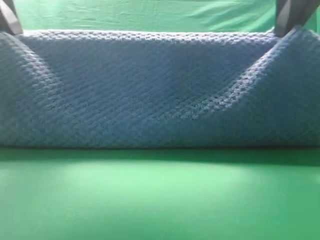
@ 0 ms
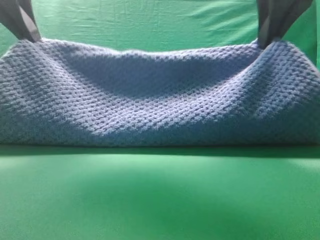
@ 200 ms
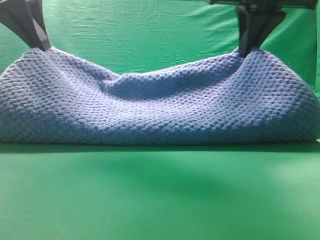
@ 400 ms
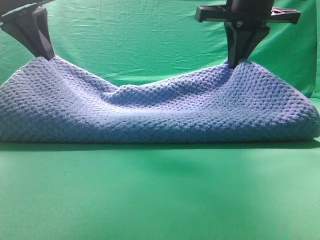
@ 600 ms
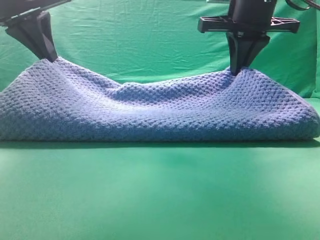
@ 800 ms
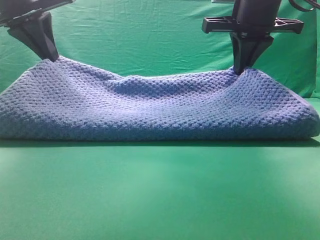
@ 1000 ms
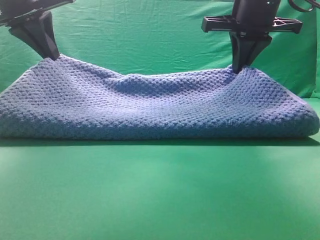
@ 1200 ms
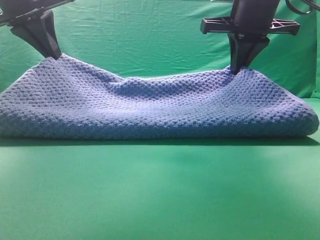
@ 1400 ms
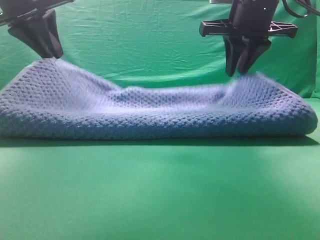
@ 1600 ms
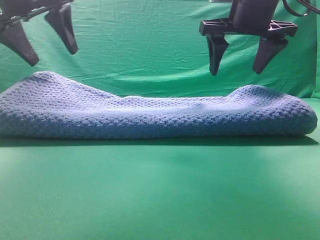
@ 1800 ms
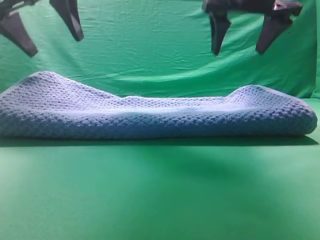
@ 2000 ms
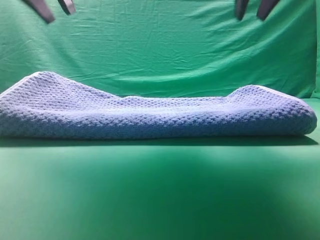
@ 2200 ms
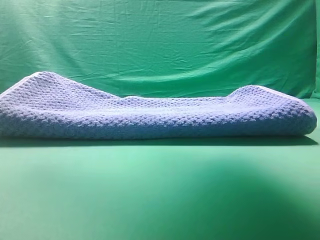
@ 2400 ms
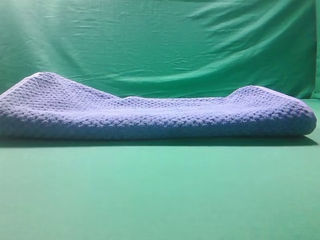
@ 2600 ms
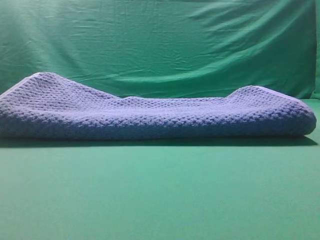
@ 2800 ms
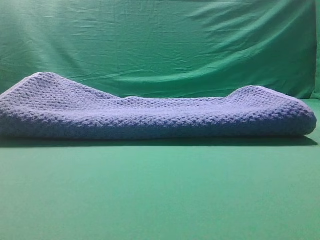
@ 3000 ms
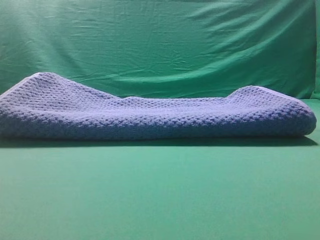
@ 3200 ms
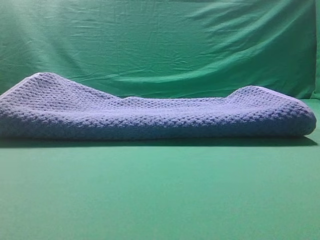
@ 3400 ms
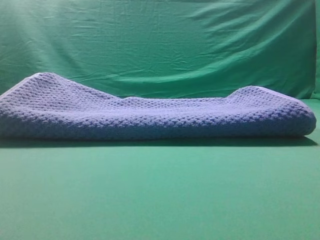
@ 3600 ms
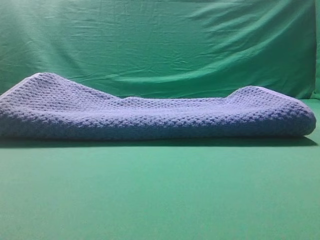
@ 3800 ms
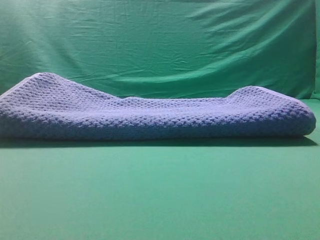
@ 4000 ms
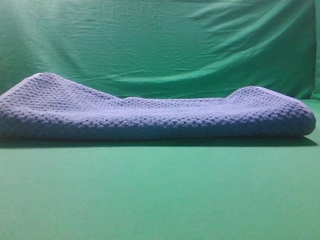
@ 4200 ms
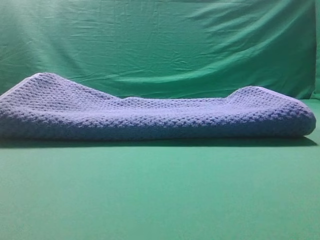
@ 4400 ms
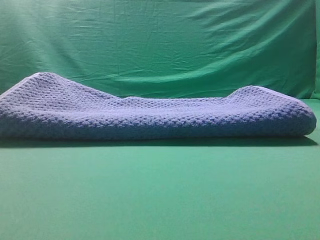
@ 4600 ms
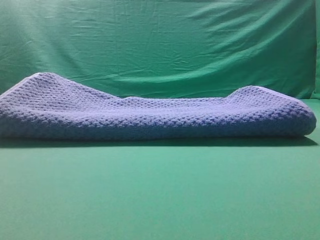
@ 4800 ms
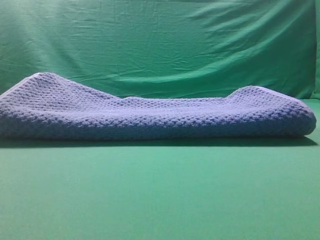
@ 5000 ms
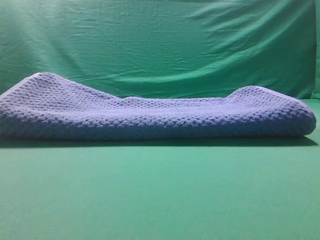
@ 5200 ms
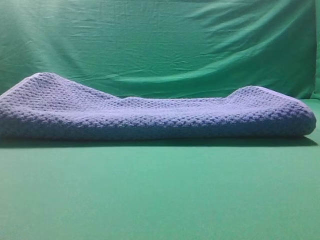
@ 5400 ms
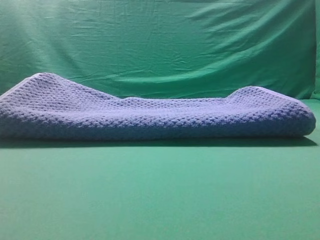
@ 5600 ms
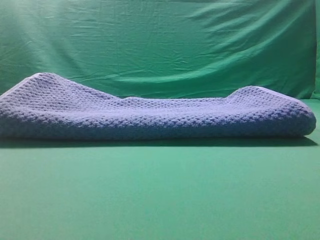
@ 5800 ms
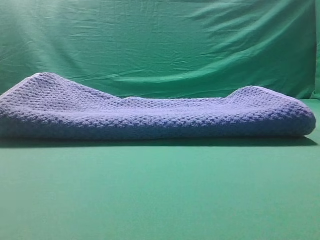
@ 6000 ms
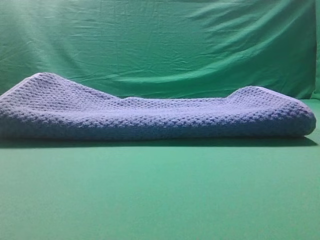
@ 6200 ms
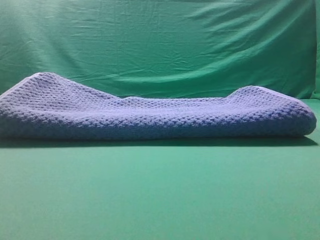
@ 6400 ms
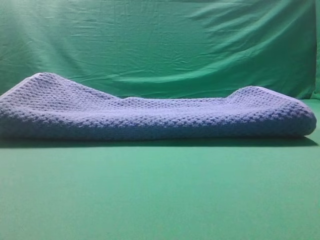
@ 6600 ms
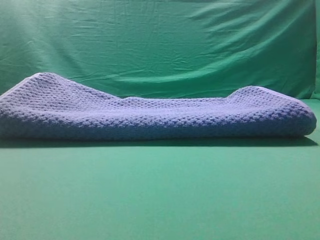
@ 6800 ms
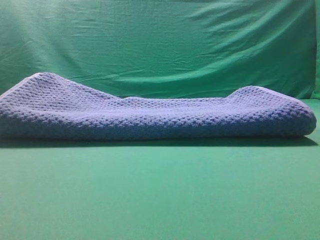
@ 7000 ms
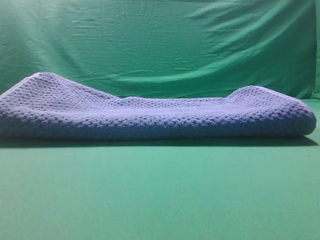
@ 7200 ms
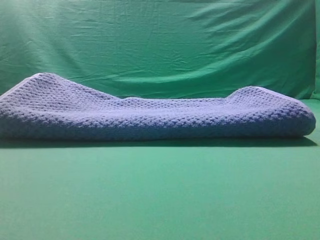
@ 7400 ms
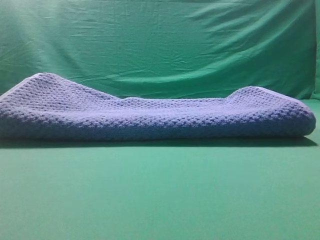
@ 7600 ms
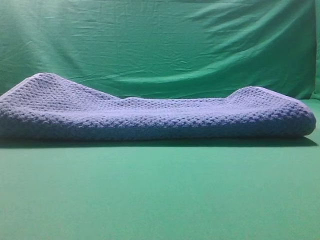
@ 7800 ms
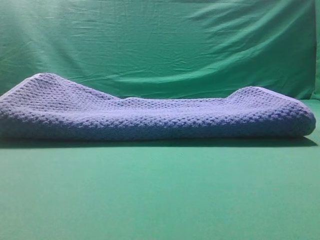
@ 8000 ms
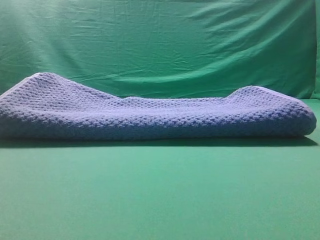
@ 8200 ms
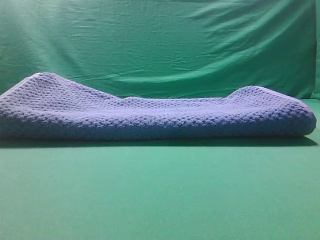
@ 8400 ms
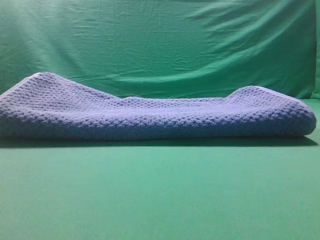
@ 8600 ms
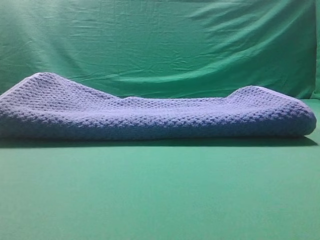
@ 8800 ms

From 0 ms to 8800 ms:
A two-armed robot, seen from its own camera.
Task of the whole recording: fold the towel on the table twice.
Step, from 0 ms to 2000 ms: Fold the towel twice on the table.
